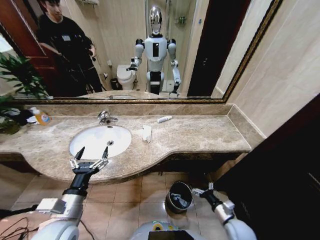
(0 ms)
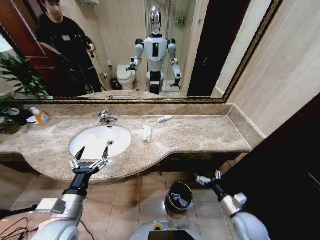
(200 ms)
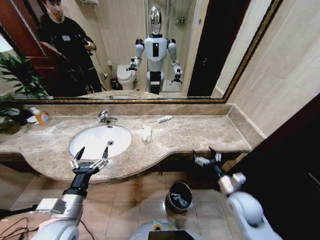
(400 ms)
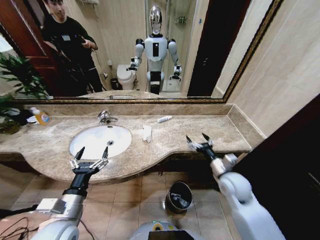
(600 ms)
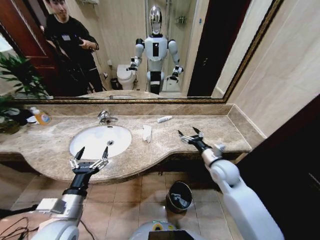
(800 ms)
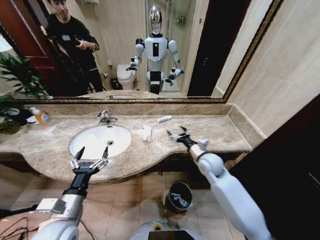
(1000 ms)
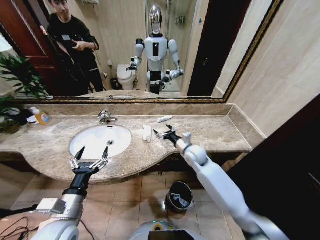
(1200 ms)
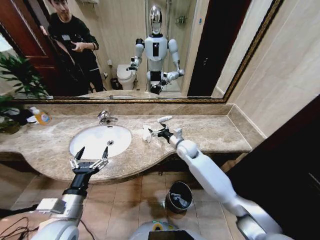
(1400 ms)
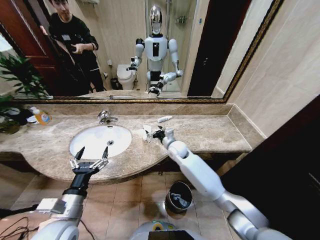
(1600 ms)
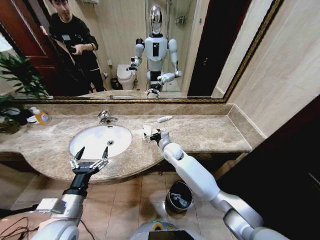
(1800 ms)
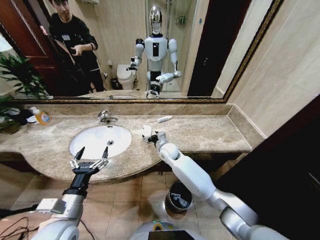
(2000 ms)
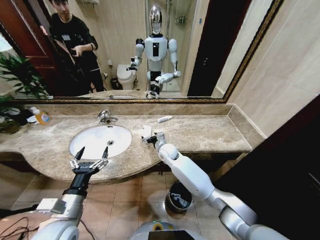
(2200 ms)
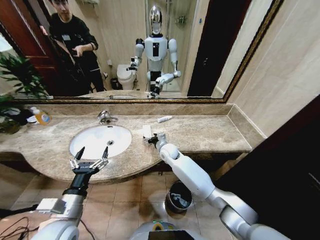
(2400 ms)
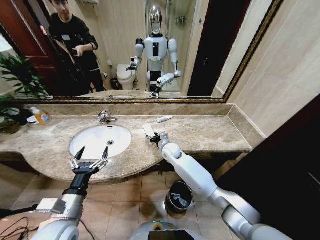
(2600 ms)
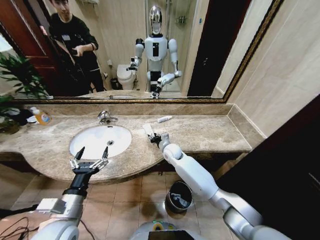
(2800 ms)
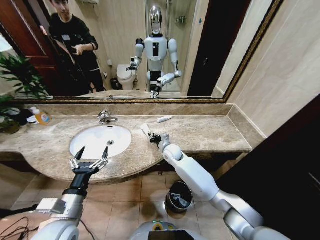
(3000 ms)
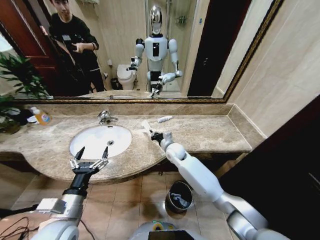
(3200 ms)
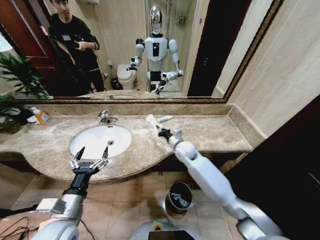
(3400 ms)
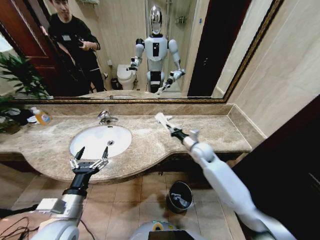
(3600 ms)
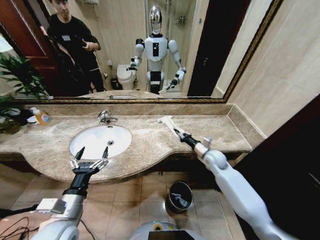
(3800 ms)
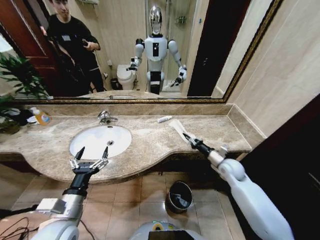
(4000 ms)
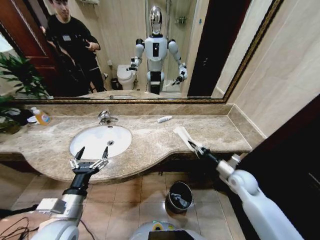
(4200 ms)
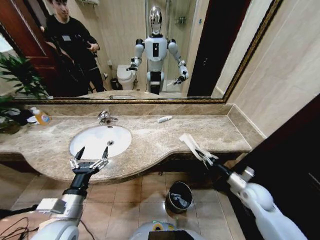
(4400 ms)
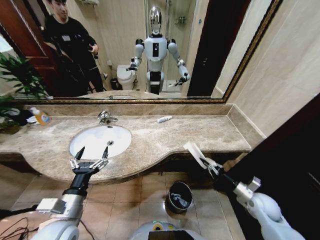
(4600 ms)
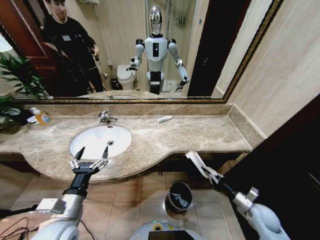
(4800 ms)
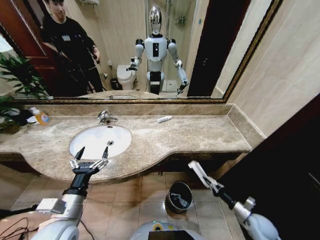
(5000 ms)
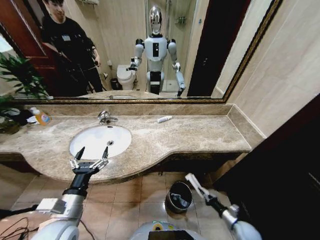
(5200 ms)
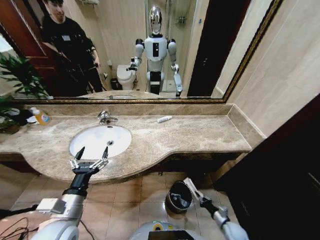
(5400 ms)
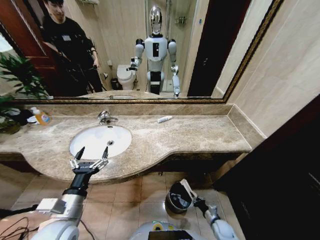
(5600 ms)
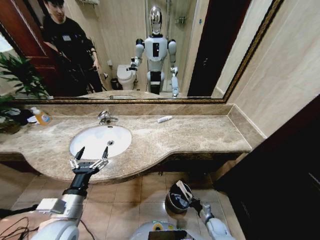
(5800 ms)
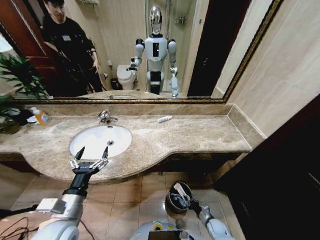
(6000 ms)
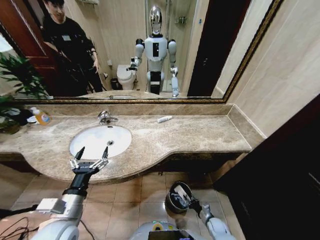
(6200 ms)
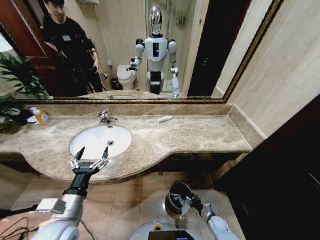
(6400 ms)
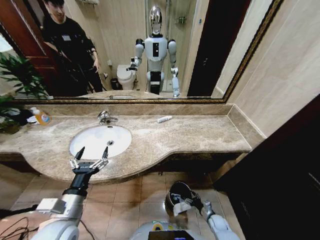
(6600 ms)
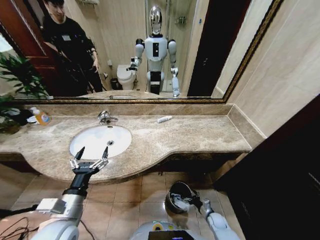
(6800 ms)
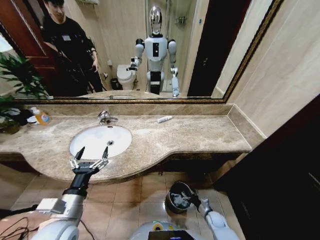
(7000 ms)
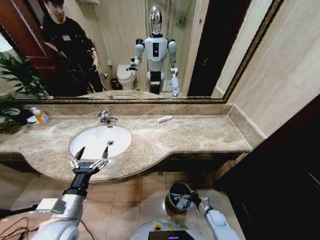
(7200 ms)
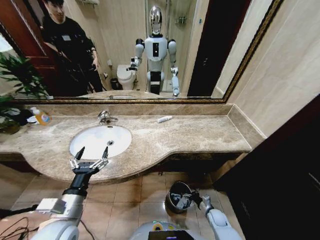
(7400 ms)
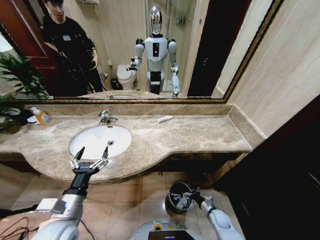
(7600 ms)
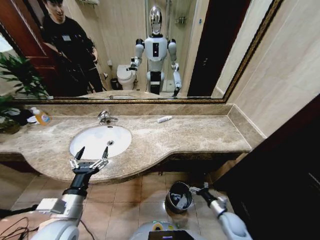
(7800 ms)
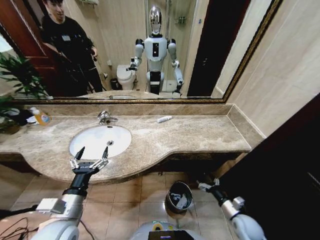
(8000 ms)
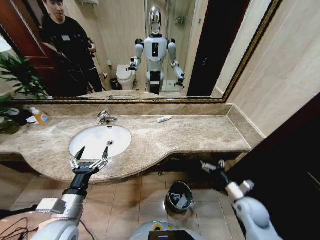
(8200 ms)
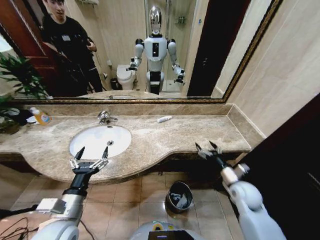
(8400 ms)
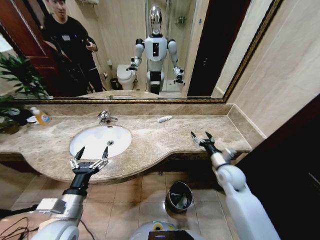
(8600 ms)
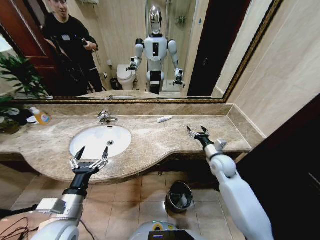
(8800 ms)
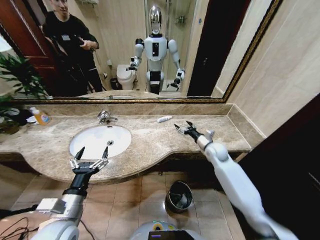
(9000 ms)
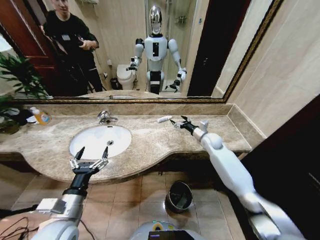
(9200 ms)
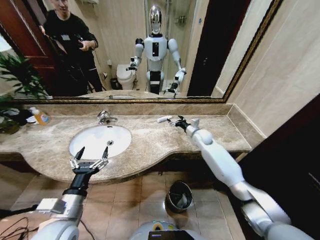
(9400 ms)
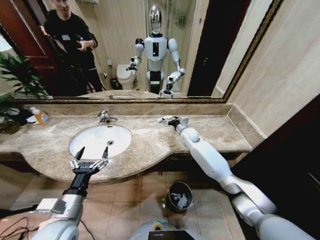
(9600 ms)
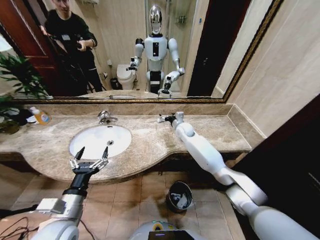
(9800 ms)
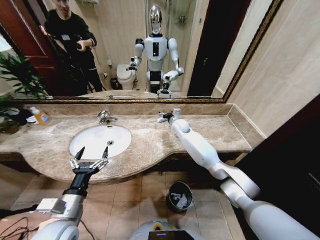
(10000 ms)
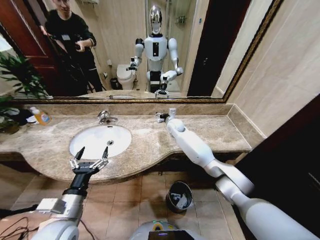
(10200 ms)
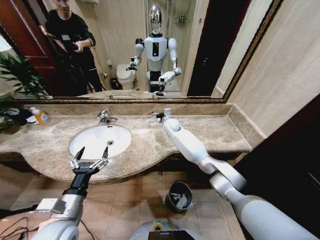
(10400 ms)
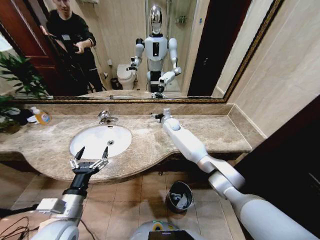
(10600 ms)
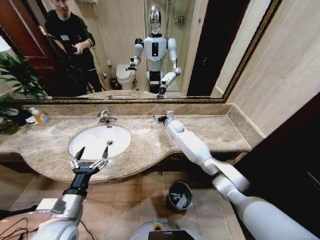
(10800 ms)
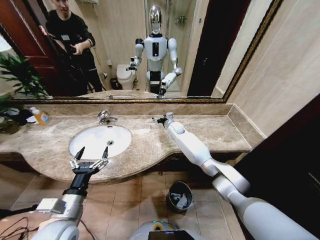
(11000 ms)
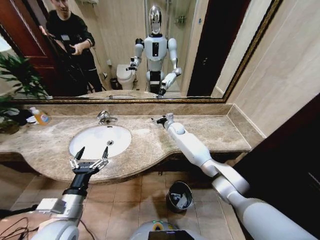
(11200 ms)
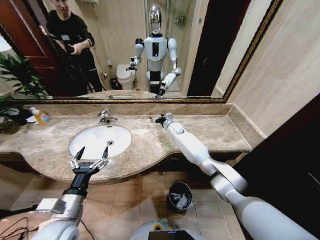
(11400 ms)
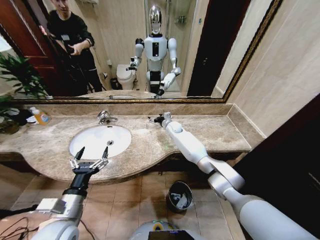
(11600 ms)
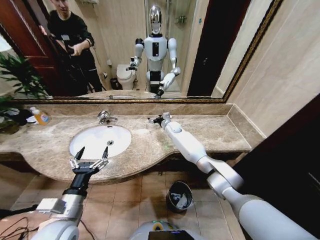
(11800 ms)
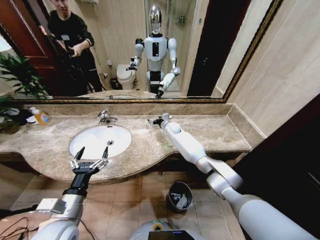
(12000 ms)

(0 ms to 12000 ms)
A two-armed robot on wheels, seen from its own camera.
Task of the whole recording: Pick up the trash from the sink and place it in the trash bin.
0 ms - 1600 ms: The right gripper travels forward, to the left and upward by some 40 cm.
1600 ms - 3000 ms: The right gripper closes its fingers.
3000 ms - 4400 ms: The right gripper heads to the right and backward, covering roughly 35 cm.
4400 ms - 6000 ms: The right gripper is displaced downward by some 30 cm.
6000 ms - 7600 ms: The right gripper heads upward, covering about 5 cm, and opens its fingers.
7600 ms - 9000 ms: The right gripper shifts roughly 35 cm upward and forward.
9000 ms - 10400 ms: The right gripper moves to the left and forward, about 25 cm.
10400 ms - 12000 ms: The grippers move only a little.

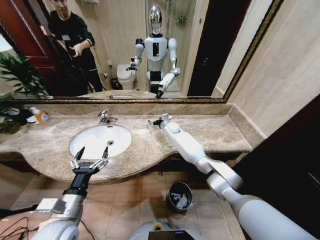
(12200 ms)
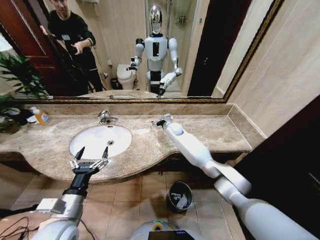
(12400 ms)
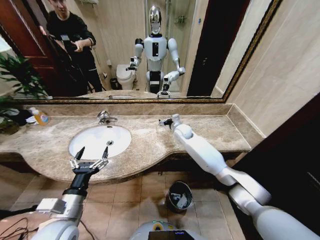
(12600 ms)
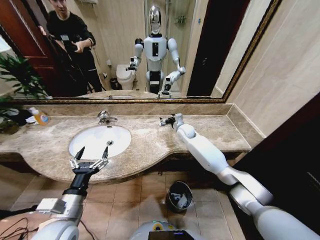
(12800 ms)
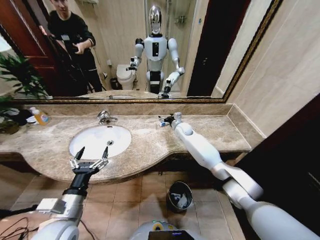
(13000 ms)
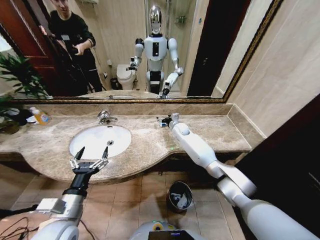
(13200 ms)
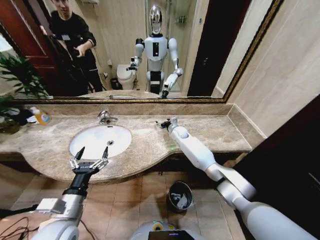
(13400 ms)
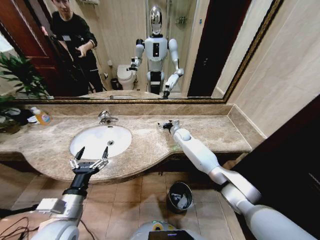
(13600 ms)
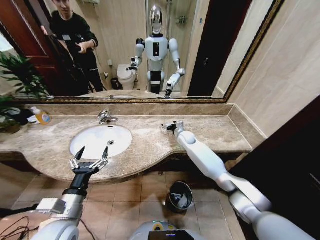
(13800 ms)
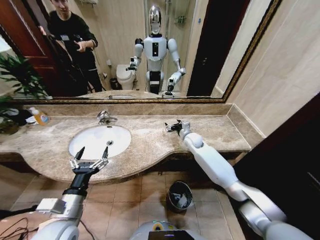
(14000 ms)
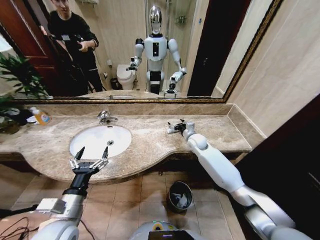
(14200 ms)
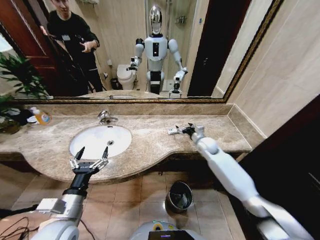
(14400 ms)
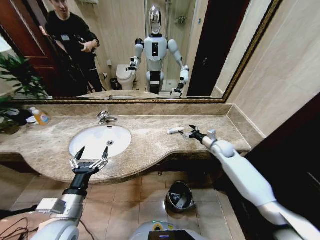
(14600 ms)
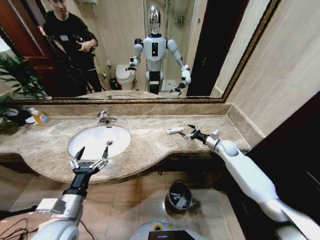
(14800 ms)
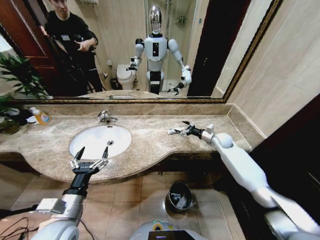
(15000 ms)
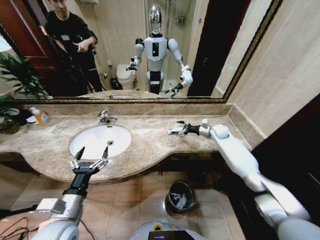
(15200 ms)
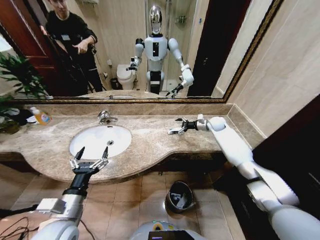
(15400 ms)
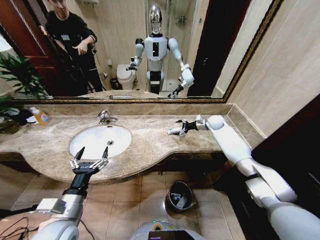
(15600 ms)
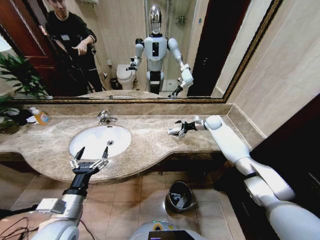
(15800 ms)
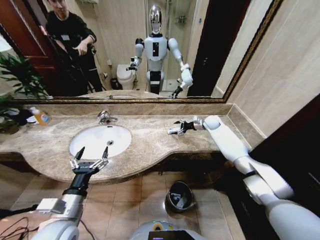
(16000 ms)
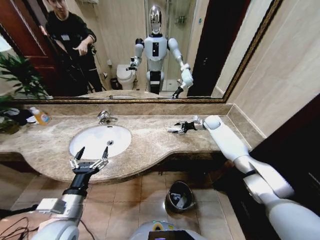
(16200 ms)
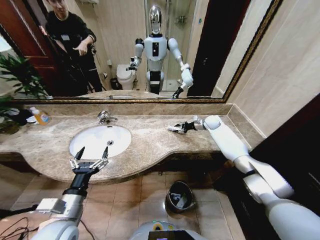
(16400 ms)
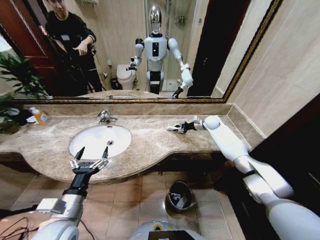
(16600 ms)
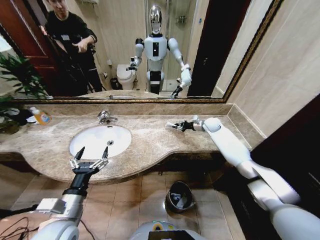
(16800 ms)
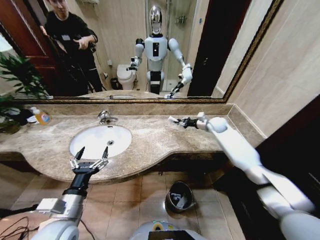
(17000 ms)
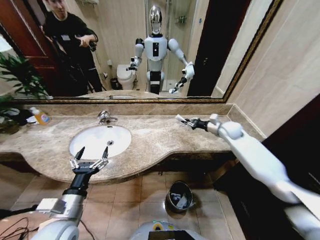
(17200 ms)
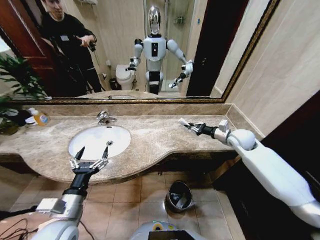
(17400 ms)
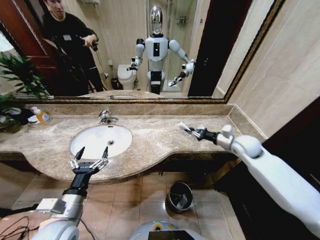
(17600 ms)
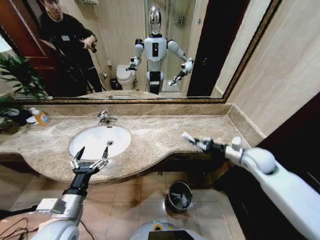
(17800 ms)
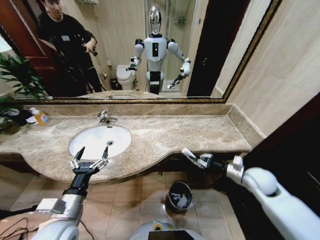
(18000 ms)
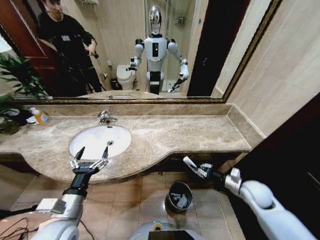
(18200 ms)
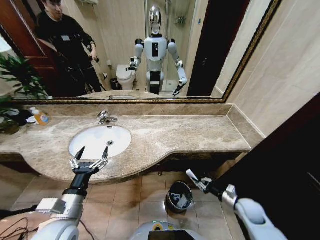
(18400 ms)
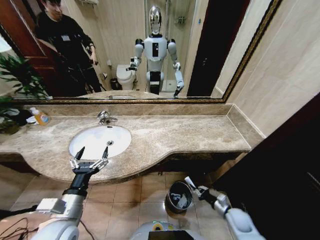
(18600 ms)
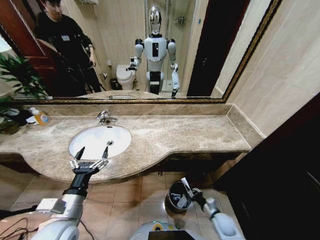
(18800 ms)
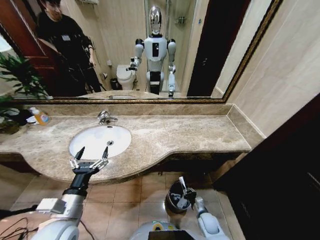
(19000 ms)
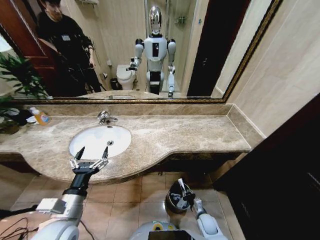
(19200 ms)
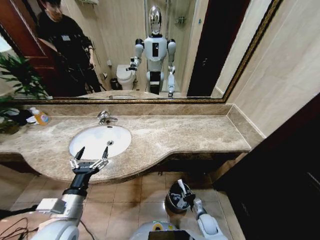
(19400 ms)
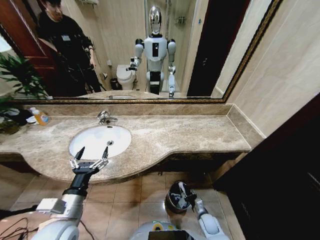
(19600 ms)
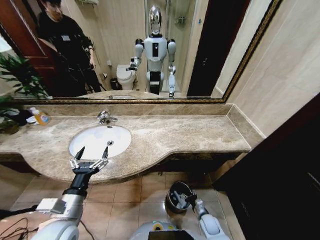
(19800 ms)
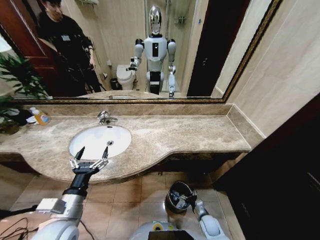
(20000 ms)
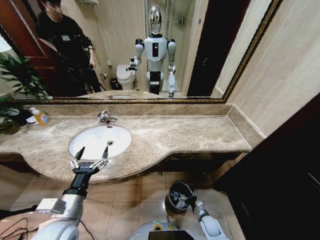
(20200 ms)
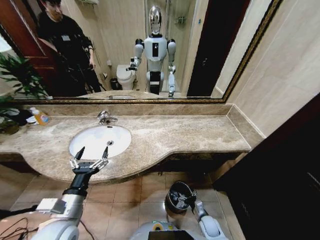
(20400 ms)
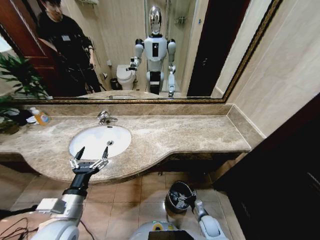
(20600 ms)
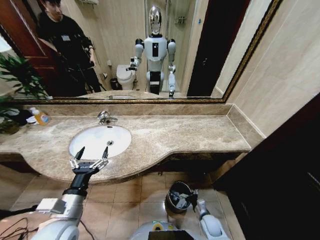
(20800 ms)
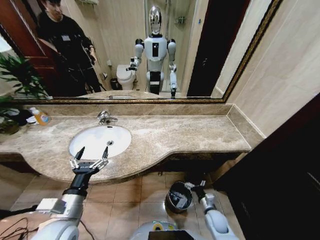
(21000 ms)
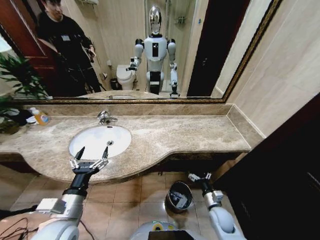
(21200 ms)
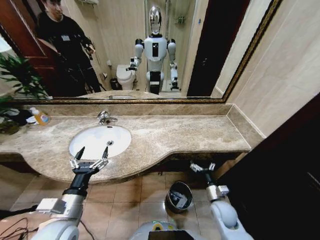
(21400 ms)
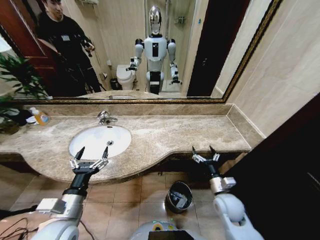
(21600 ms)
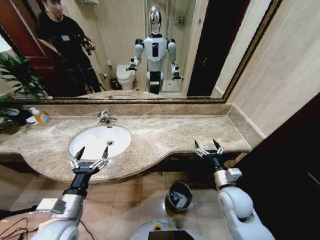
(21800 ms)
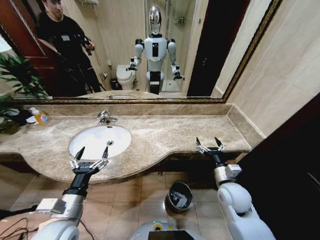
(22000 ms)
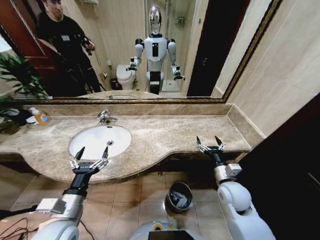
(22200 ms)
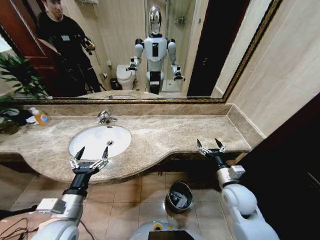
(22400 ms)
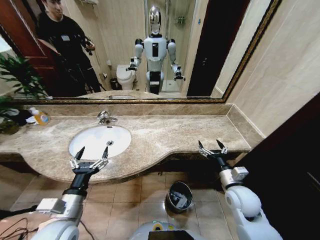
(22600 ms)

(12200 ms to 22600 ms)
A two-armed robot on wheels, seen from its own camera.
Task of the whole recording: Pick up the trash from the sink and place it in the trash bin.
12200 ms - 13600 ms: The right gripper heads to the right, covering roughly 5 cm.
13600 ms - 15200 ms: The right gripper shifts some 20 cm to the right.
15200 ms - 16600 ms: The right gripper travels forward by roughly 5 cm, and closes up.
16600 ms - 18200 ms: The right gripper heads backward, covering some 35 cm.
18200 ms - 19600 ms: The right gripper heads downward and to the left, covering roughly 30 cm.
19600 ms - 21200 ms: The right gripper shifts roughly 10 cm upward, and opens up.
21200 ms - 22600 ms: The right gripper is displaced upward by about 20 cm.
